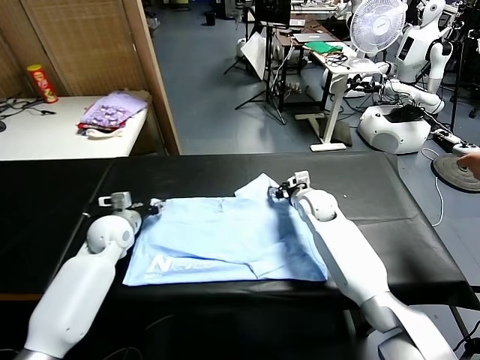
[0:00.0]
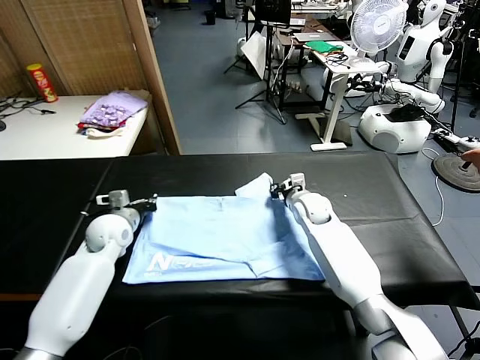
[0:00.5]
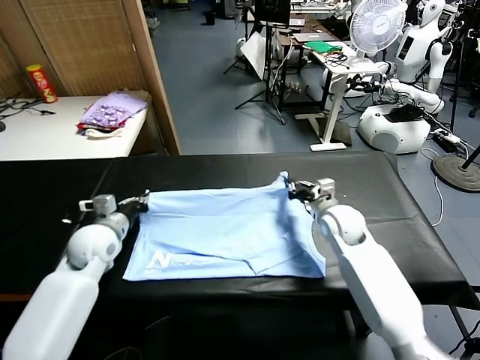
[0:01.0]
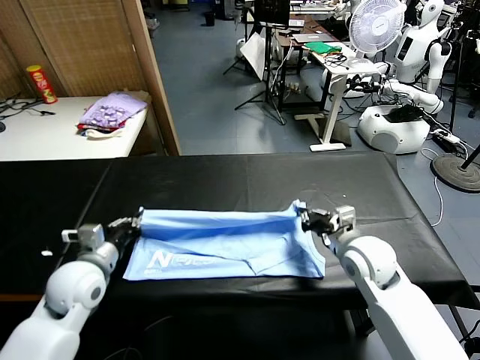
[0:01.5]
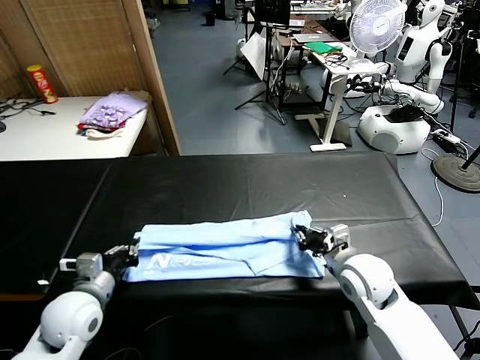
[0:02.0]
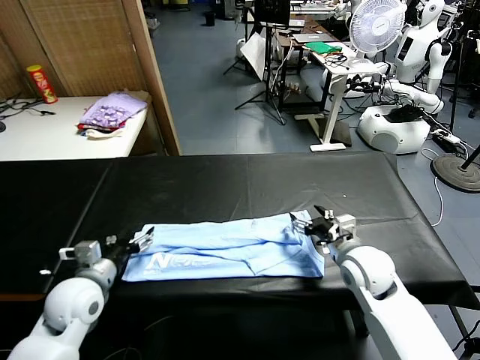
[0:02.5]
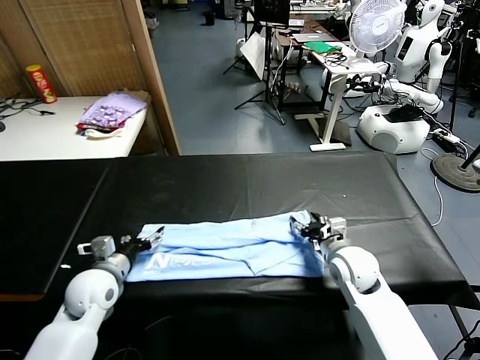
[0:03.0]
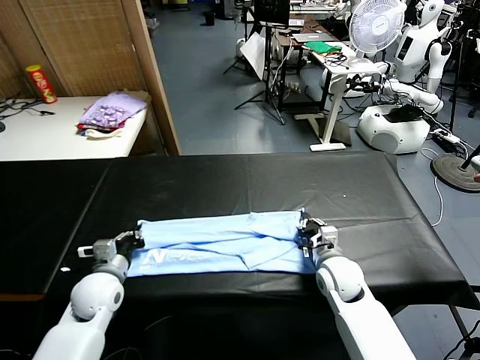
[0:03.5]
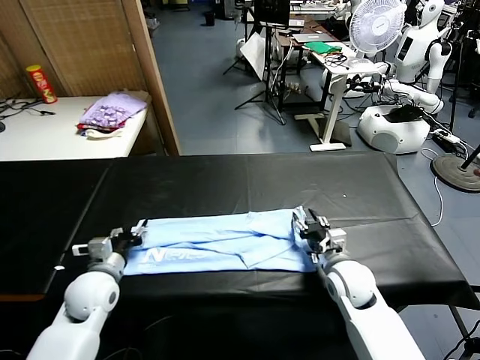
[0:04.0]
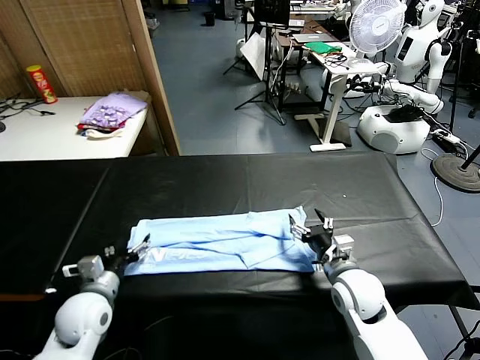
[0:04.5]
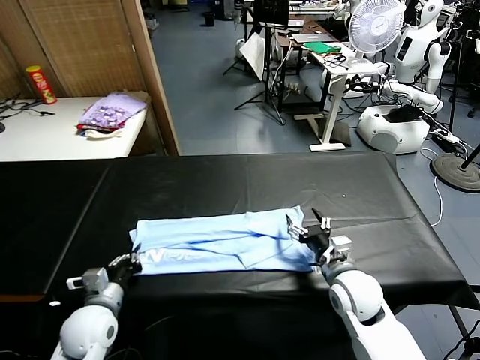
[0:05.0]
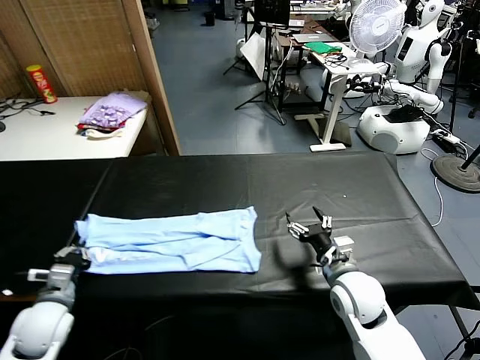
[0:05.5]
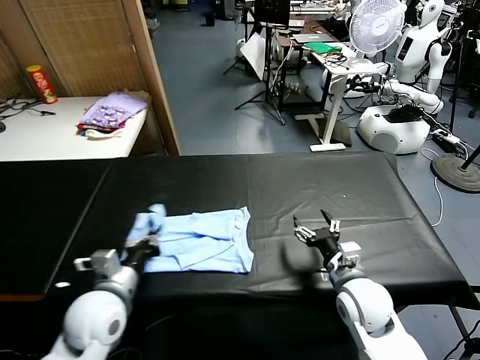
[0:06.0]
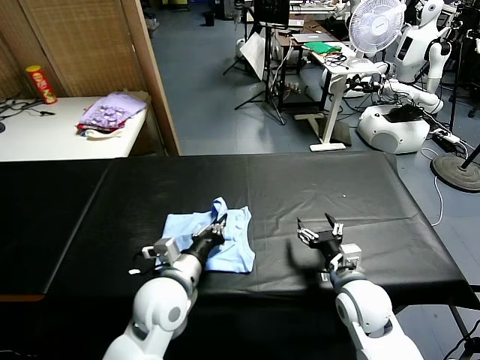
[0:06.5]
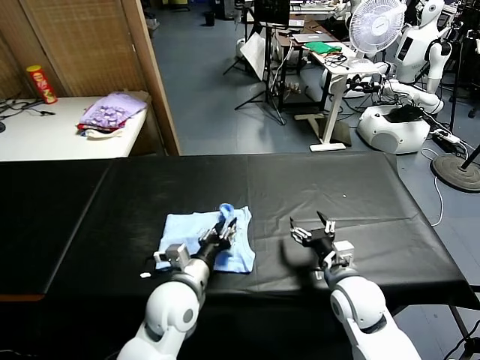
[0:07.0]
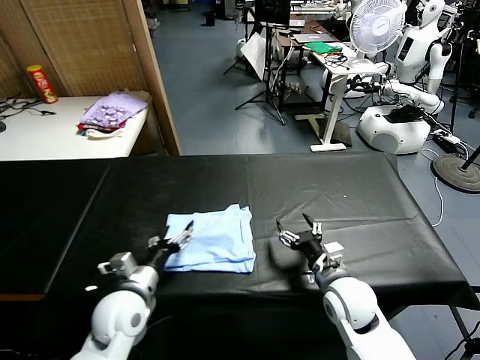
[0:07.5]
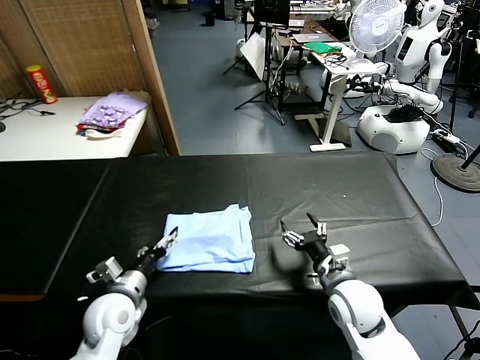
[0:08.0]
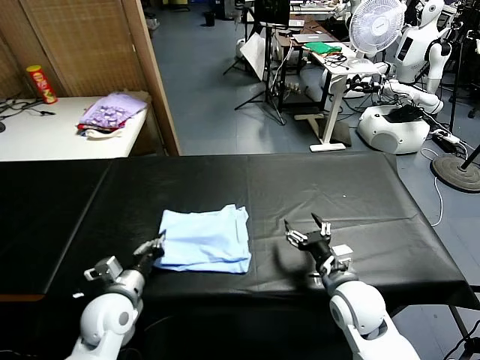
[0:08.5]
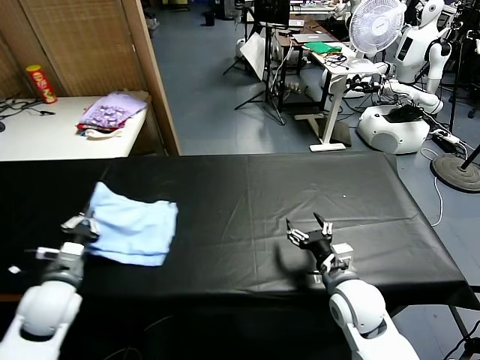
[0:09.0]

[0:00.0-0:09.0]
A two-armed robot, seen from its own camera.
Task of the whole recording: fold and organize the clothes.
Step, 0:00.5 to 0:02.0: use both grippers to drag the upper edge of the fabric backward and fold it over the lower edge.
Step, 0:02.5 to 0:04.5: use the left gripper to clamp the left edge of the fabric.
Step, 0:05.0 to 0:07.0: use the left gripper to drag the left edge of the fabric to the left and folds it over the right edge.
0:00.0 to 0:02.0: Both grippers move backward, approximately 20 cm. The right gripper opens its fingers.
0:02.0 to 0:04.5: The left gripper travels downward by approximately 5 cm, and opens its fingers. Meanwhile the right gripper closes and opens again.
0:04.5 to 0:07.0: The left gripper shifts some 20 cm to the right, and closes.
0:07.0 to 0:09.0: The left gripper travels to the left by approximately 25 cm, and closes.

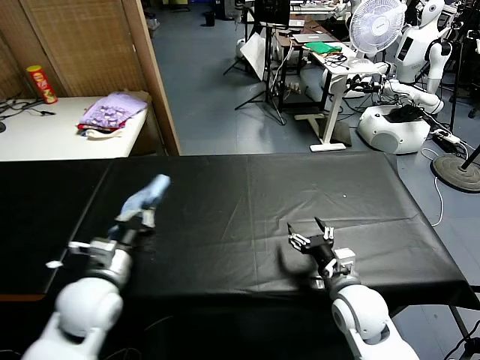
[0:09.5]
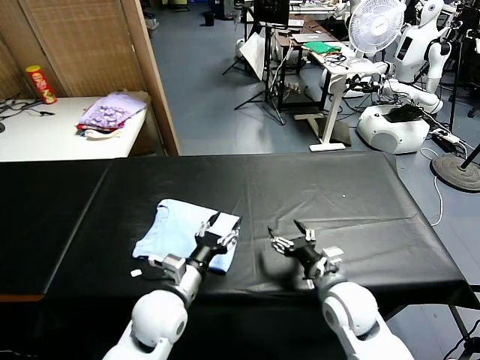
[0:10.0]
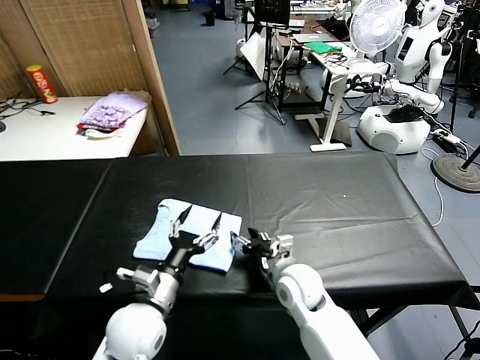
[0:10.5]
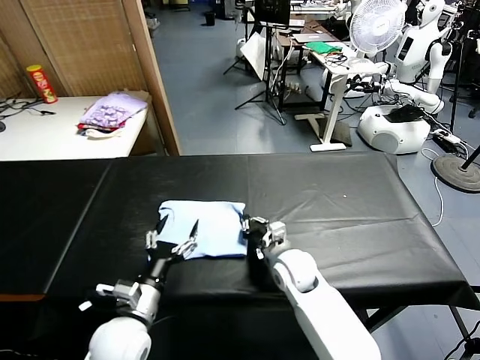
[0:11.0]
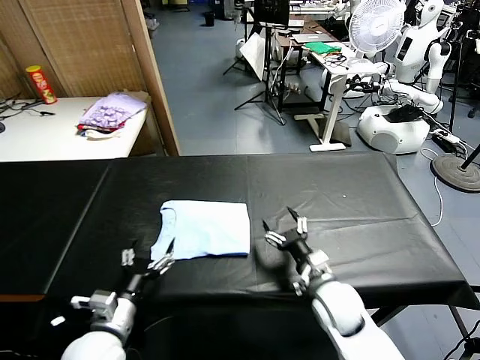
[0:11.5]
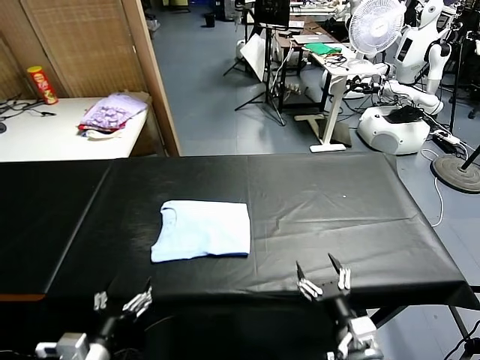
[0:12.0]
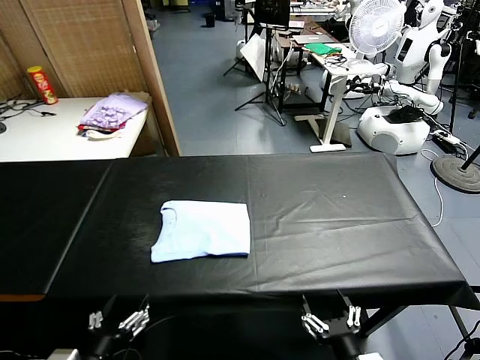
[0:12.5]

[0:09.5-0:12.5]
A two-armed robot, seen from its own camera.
Task of the whole recording: fold and organize the clothes.
Step, 0:10.0 to 0:11.0: Drag the clothes to the center of the table.
0:09.5 to 0:11.0: The left gripper travels to the right and downward by some 10 cm, and opens up, while the right gripper travels to the left and forward by some 15 cm, and closes up.
0:11.0 to 0:12.5: The left gripper goes approximately 15 cm backward, while the right gripper travels backward by some 30 cm, and opens its fingers.

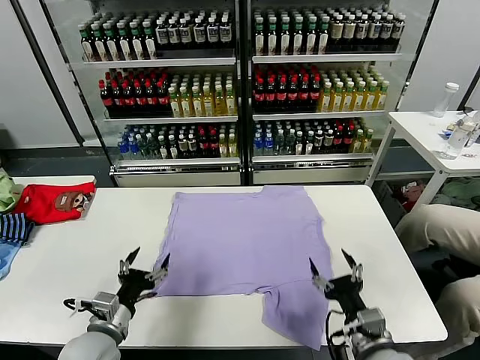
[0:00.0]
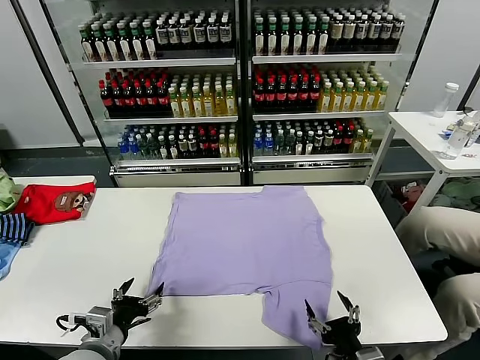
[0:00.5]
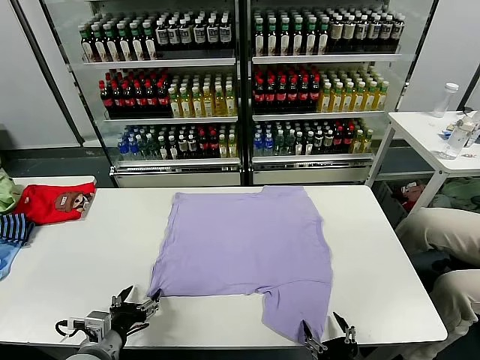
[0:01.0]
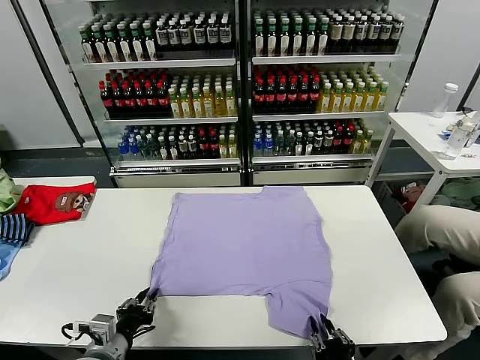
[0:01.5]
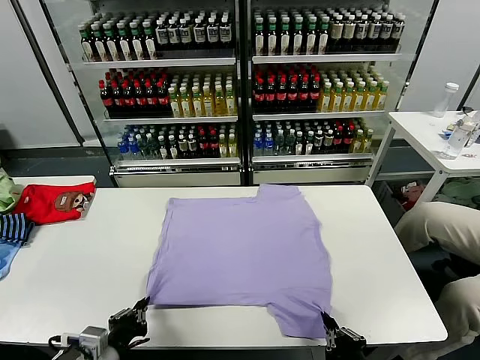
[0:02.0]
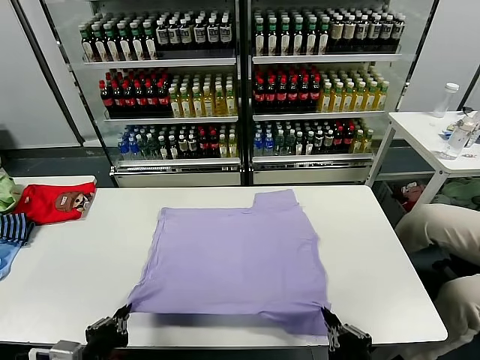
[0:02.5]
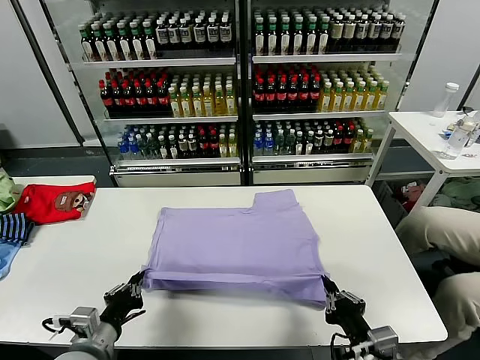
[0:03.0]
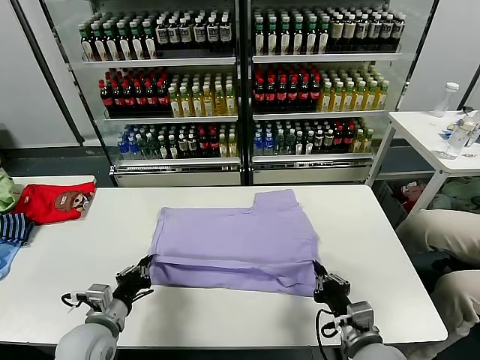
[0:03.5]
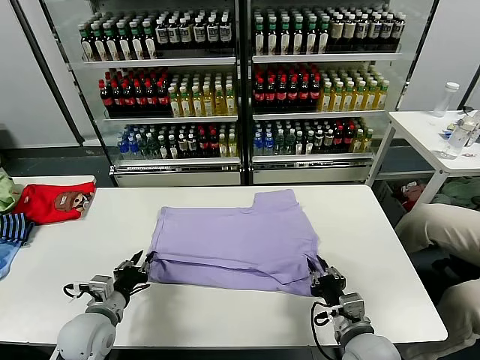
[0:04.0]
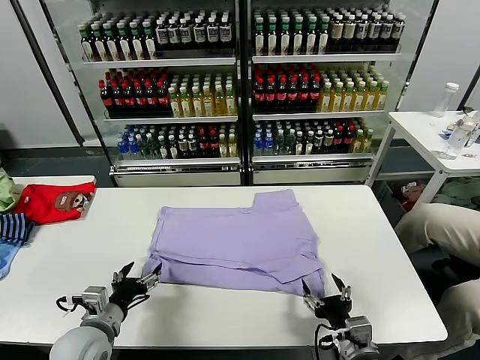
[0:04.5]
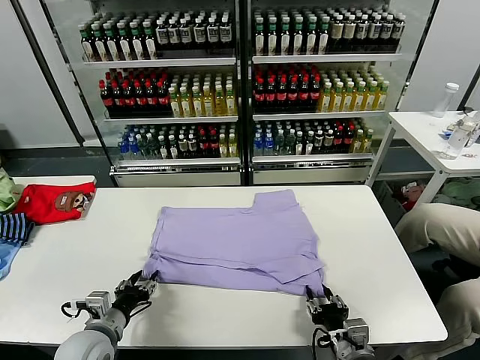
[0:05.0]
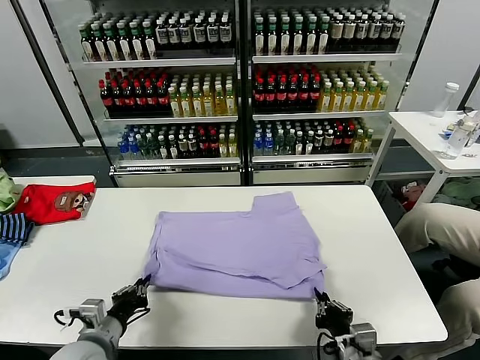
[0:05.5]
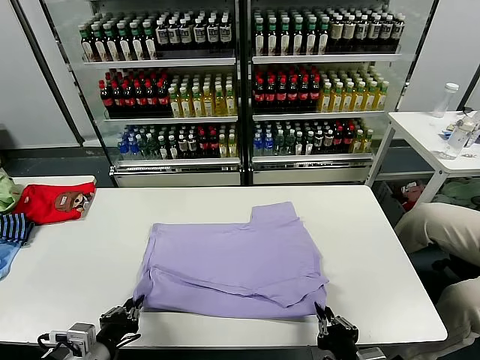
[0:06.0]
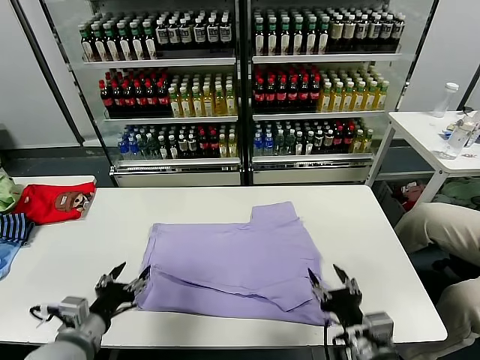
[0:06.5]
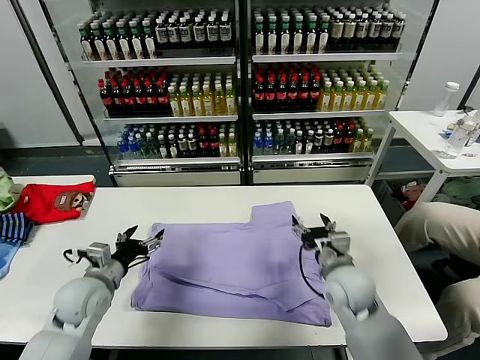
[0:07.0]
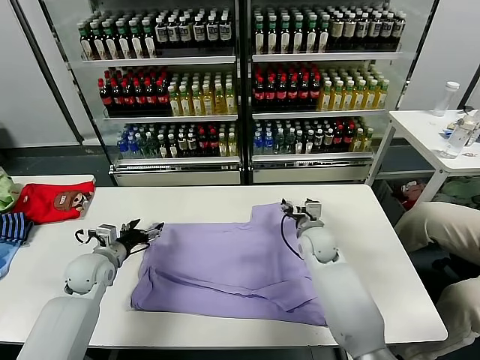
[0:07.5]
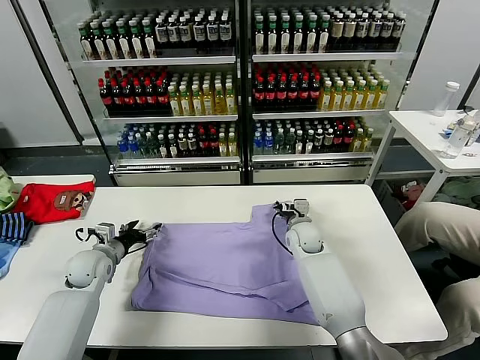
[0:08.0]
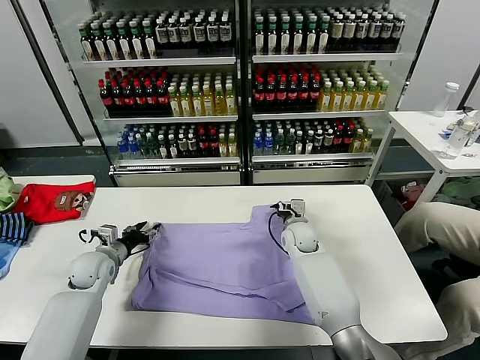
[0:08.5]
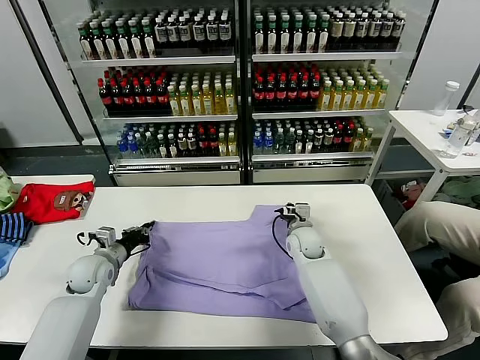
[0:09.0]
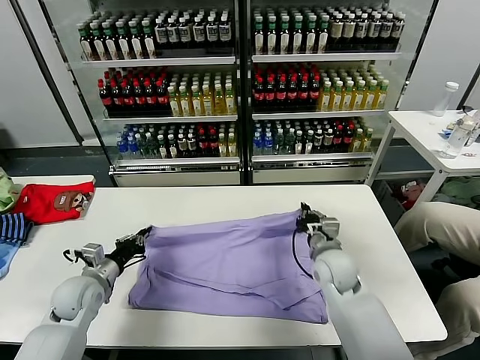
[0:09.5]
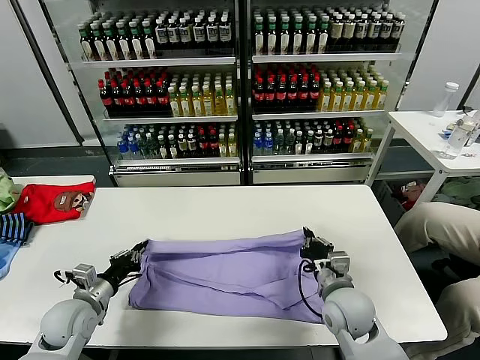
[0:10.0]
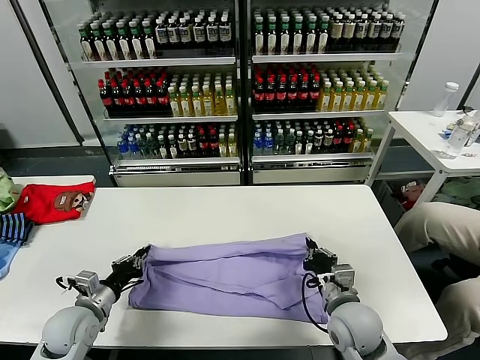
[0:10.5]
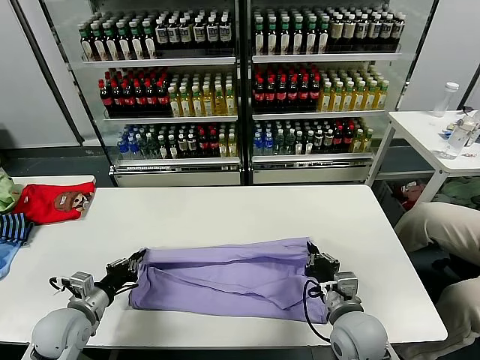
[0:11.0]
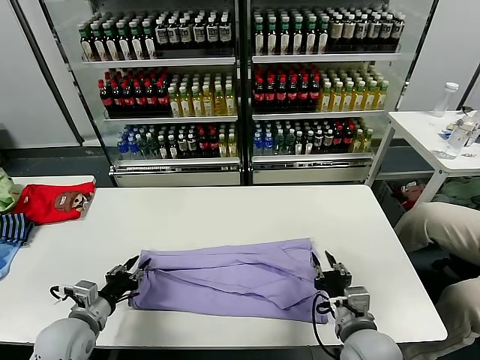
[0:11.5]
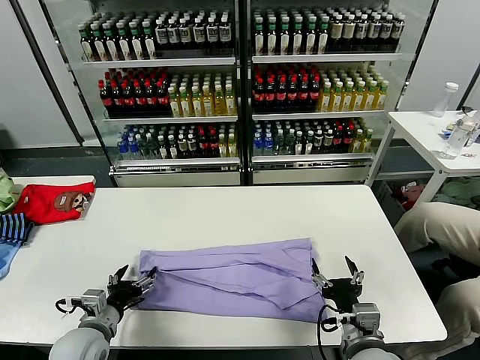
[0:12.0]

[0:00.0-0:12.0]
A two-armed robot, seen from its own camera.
Task of the whole recording: fold and organize the clothes.
Step, 0:00.0 to 0:01.5: use both grippers simultaneously to clamp the lower edge of the clothing fabric.
Step, 0:02.5 to 0:04.5: use both grippers to drag the lower edge of the fabric forward and fold it over the upper edge.
Step, 0:05.0 to 0:06.0: Drag the clothes downward with both gripper.
Step, 0:06.5 to 0:09.0: use both grippers simultaneously to clamp the upper edge of the clothing fabric.
Step, 0:09.5 to 0:11.5: use both grippers to drag the upper edge of the fabric backward and fold it over the lower edge.
0:02.0 to 0:04.0: The two grippers go approximately 15 cm forward. The left gripper opens up. The right gripper opens up.
0:04.0 to 0:06.0: Both grippers travel together backward, approximately 10 cm. The left gripper opens, then closes again; the right gripper opens, then closes again.
0:06.0 to 0:08.0: The left gripper goes approximately 25 cm forward, and opens up. The right gripper is displaced forward by roughly 40 cm, and opens.
0:08.0 to 0:10.0: The right gripper travels backward by some 20 cm, and closes its fingers, while the left gripper travels backward by some 15 cm, and closes up.
0:10.0 to 0:12.0: The left gripper goes roughly 5 cm backward, and opens up; the right gripper travels backward by approximately 10 cm, and opens its fingers.
